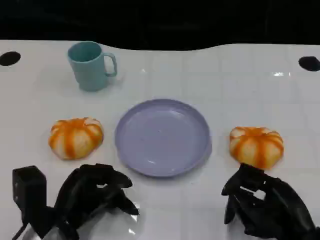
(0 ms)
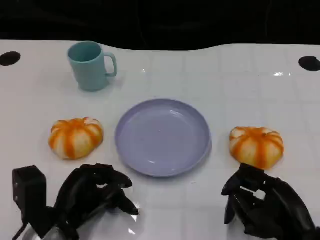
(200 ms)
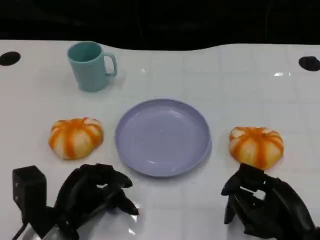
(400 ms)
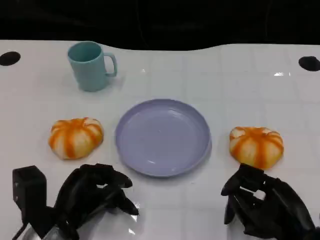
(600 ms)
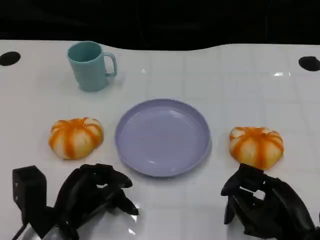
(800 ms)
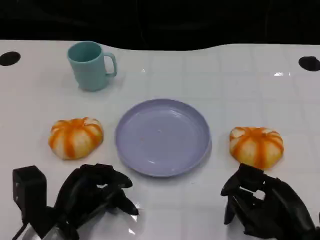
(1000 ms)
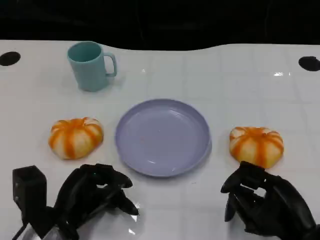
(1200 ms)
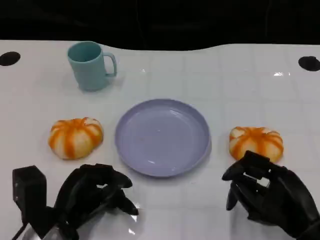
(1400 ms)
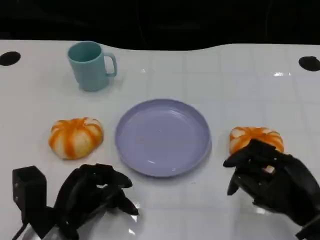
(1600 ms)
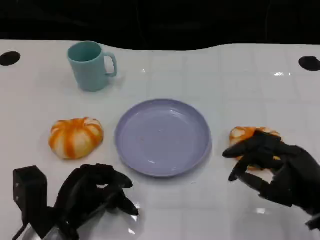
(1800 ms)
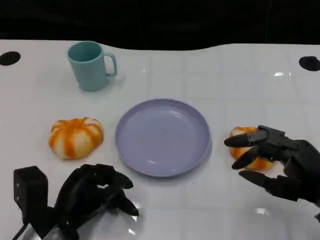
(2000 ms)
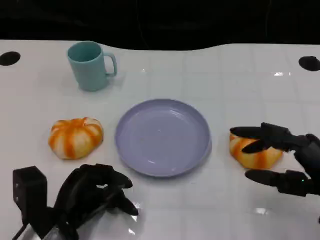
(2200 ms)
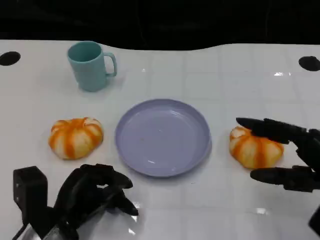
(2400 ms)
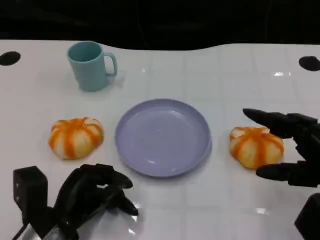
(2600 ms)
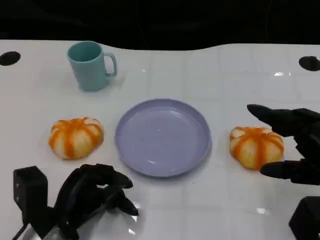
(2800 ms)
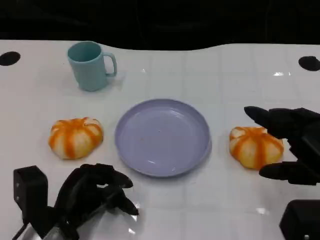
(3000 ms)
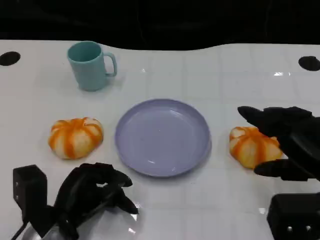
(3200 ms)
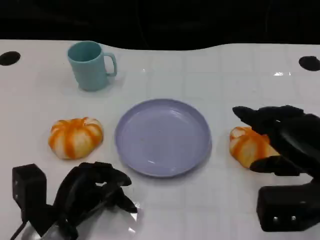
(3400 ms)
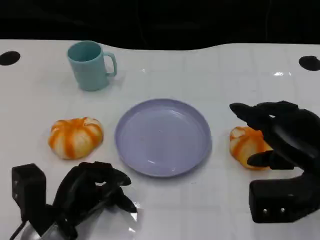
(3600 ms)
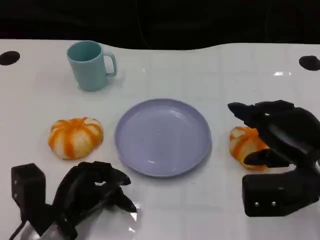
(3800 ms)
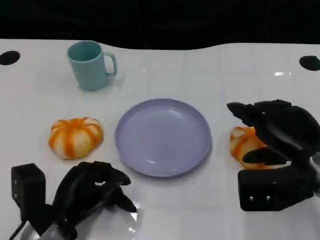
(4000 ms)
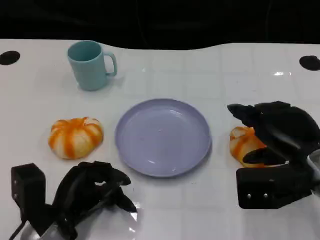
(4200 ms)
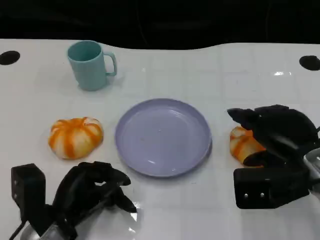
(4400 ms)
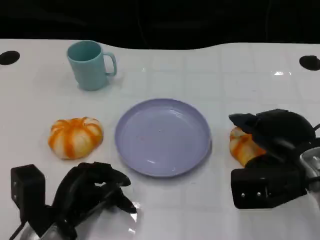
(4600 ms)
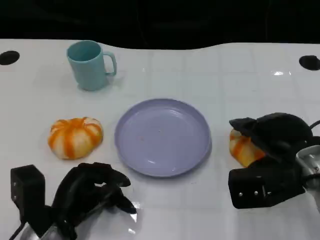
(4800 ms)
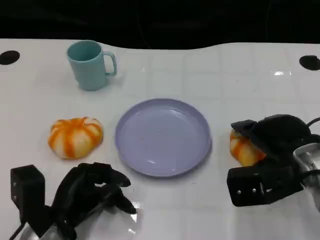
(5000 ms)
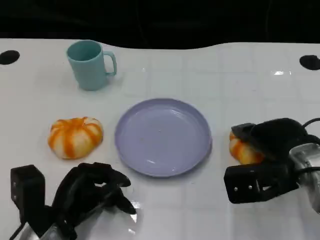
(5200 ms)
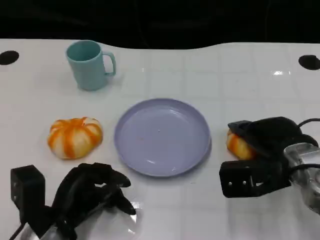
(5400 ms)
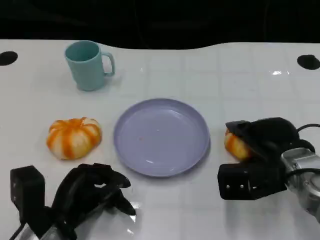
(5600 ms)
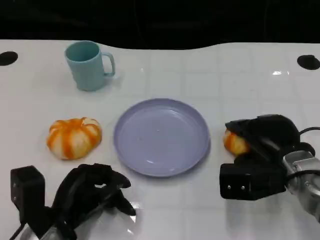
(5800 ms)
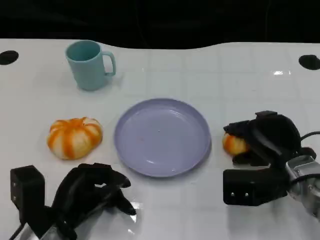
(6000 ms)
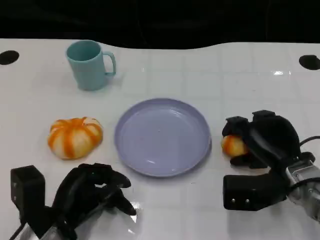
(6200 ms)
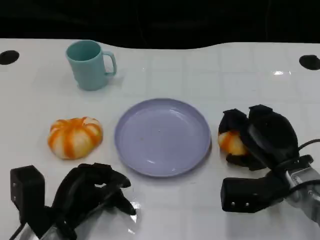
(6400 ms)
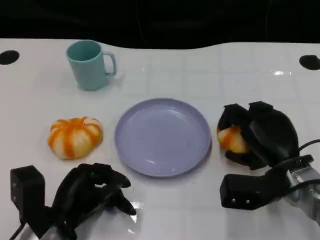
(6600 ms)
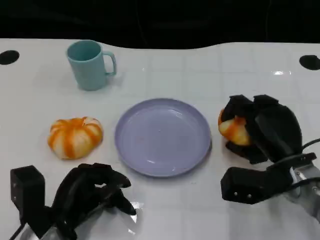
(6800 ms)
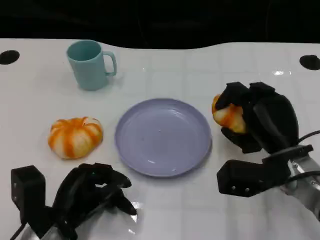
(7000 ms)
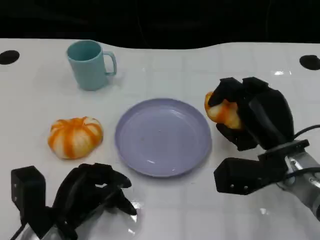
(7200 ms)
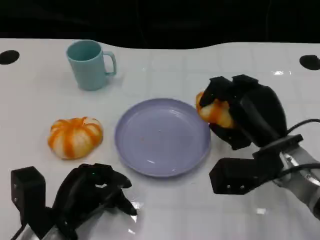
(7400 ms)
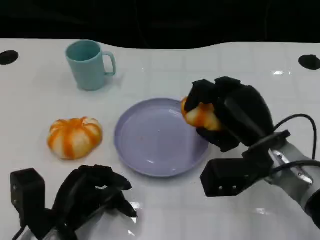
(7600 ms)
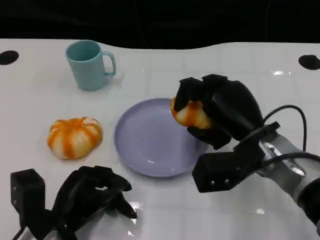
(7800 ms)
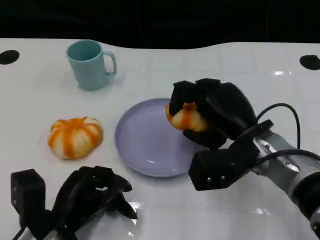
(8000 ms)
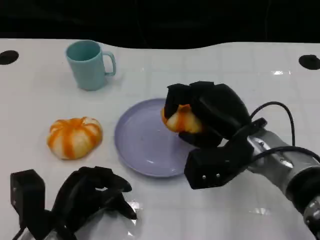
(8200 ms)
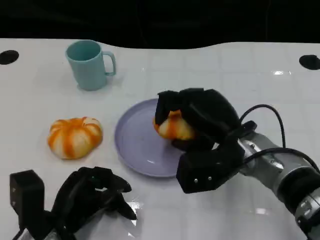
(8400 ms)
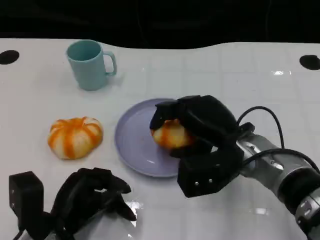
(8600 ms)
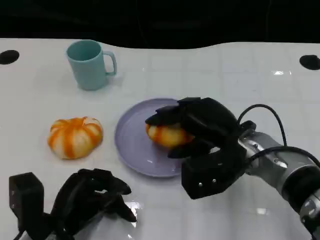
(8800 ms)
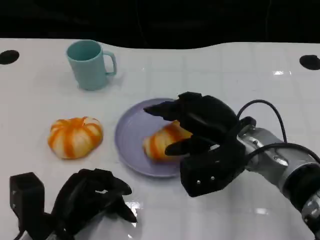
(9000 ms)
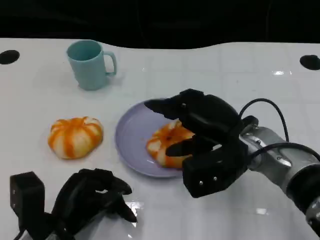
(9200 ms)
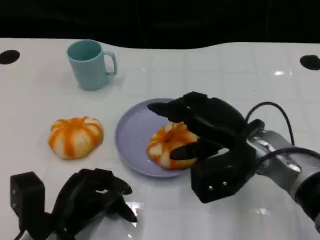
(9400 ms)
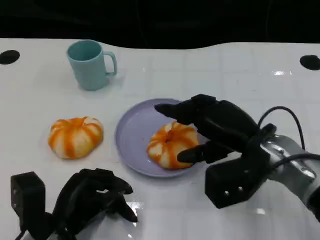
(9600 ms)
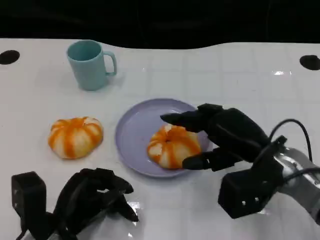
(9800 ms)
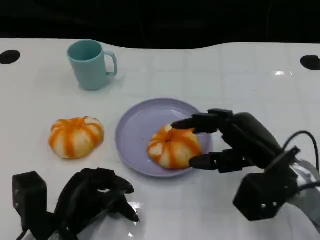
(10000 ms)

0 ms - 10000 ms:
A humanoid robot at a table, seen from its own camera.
Task of the whole recording: Grasp the bread from the table and place it into the plate.
0 ms - 1400 ms: The hands make only small movements.
1400 ms - 2800 ms: The right hand heads upward, covering roughly 10 cm.
2800 ms - 4200 ms: The right hand heads forward, covering about 5 cm.
4200 ms - 5800 ms: The right hand goes roughly 5 cm downward.
7200 ms - 8600 ms: The right hand goes about 5 cm to the left.
8600 ms - 10000 ms: The right hand heads to the right, covering about 5 cm.

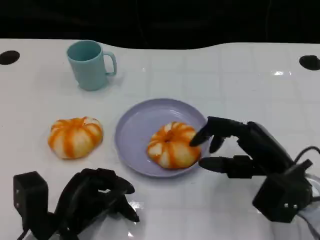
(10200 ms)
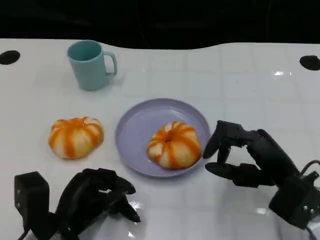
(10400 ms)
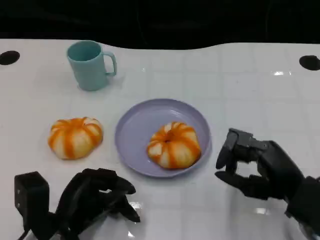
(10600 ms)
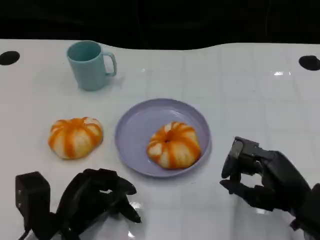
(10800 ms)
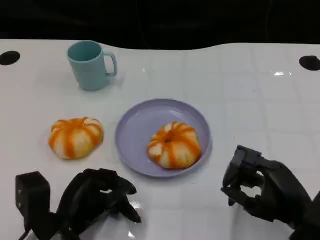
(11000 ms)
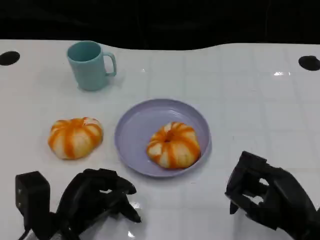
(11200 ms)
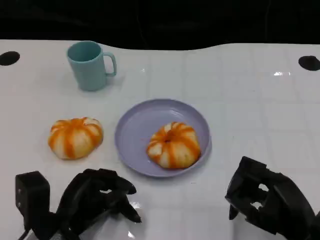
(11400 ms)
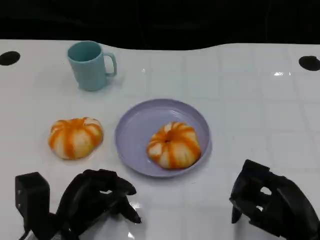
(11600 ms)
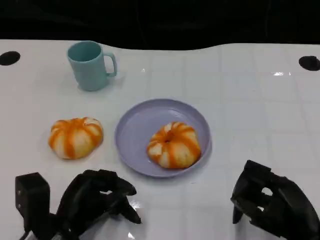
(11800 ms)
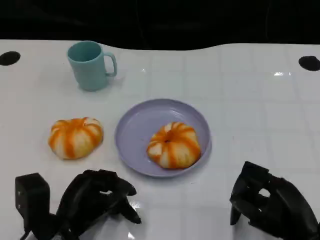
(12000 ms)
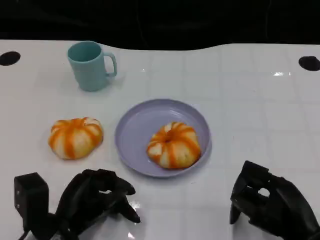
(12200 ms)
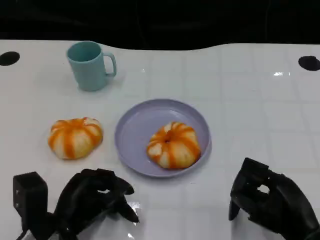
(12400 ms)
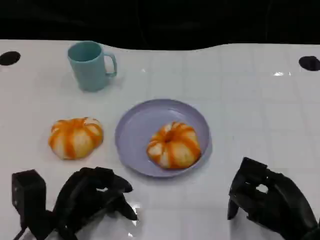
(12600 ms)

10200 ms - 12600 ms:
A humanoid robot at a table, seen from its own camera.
Task of the whole recording: Grasp the bread from the table and place it into the plate.
10200 ms - 11400 ms: The right hand goes roughly 10 cm backward.
11400 ms - 12600 ms: There are only small adjustments of the hands.

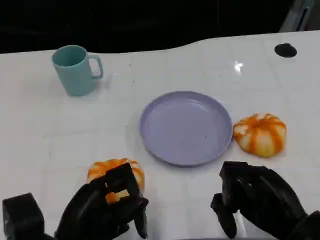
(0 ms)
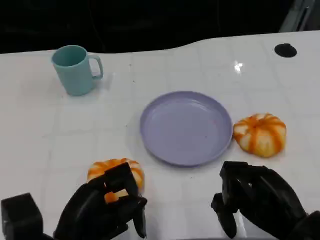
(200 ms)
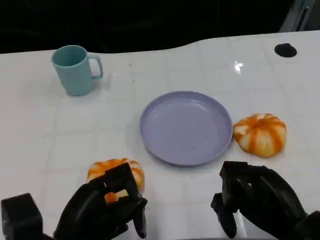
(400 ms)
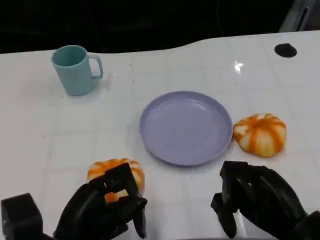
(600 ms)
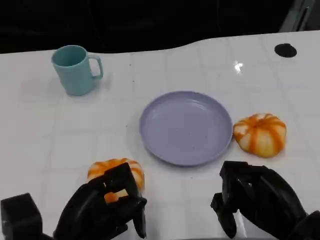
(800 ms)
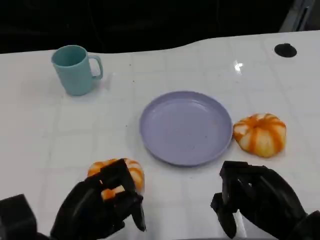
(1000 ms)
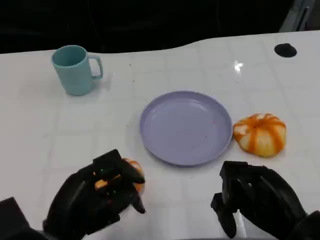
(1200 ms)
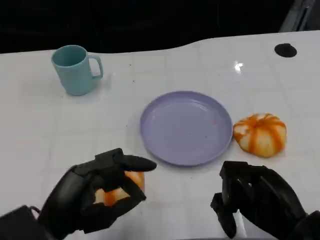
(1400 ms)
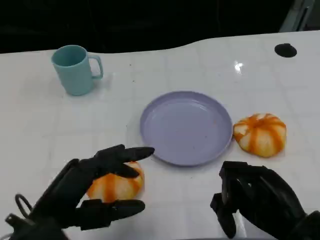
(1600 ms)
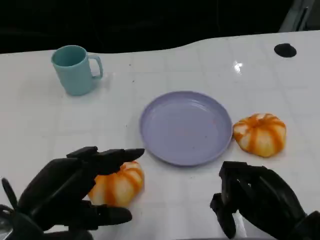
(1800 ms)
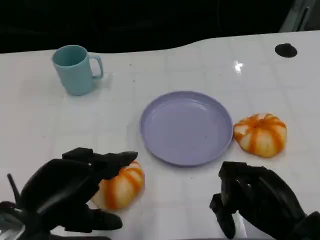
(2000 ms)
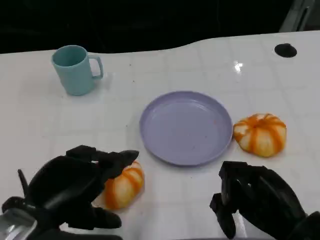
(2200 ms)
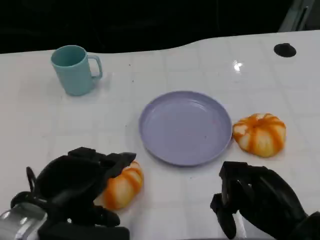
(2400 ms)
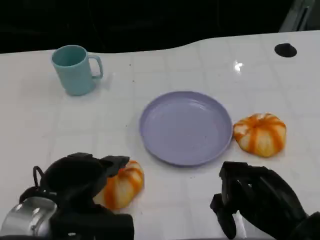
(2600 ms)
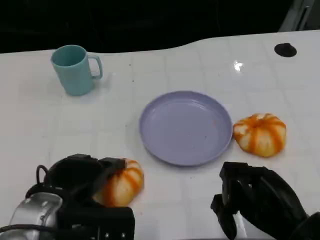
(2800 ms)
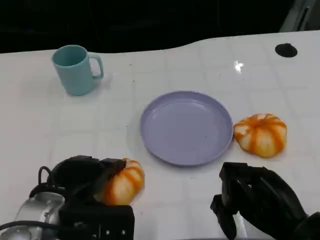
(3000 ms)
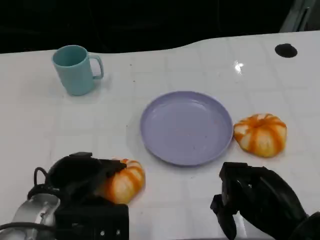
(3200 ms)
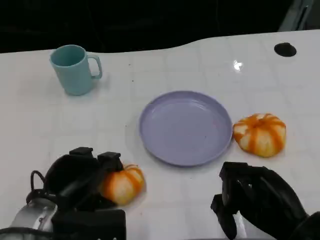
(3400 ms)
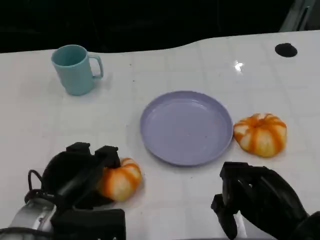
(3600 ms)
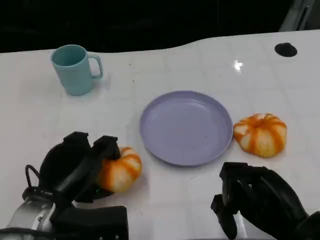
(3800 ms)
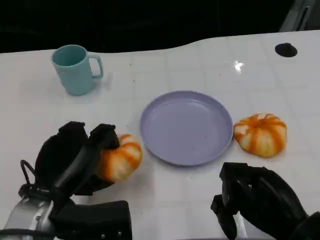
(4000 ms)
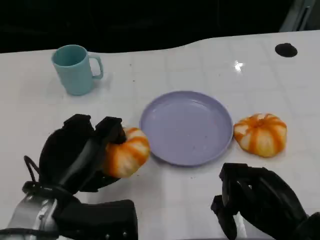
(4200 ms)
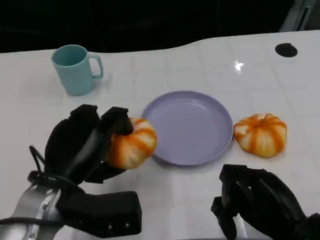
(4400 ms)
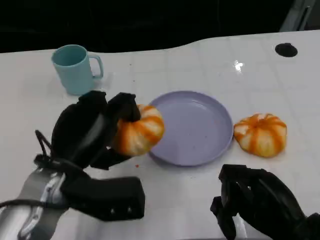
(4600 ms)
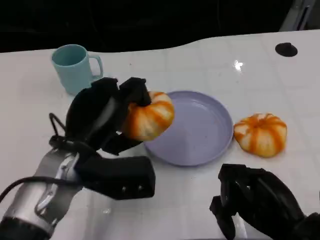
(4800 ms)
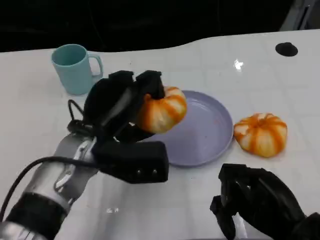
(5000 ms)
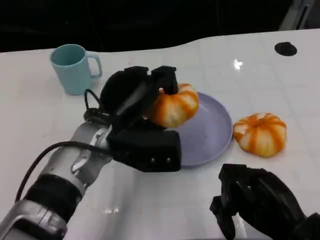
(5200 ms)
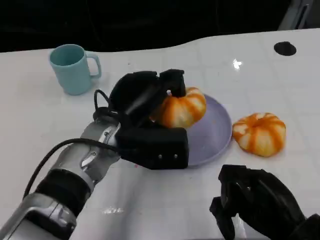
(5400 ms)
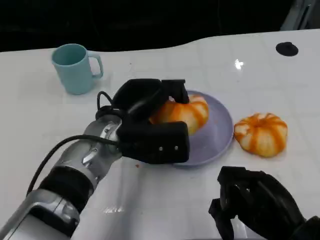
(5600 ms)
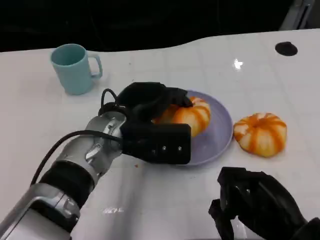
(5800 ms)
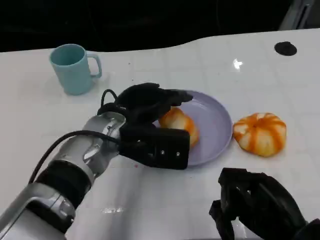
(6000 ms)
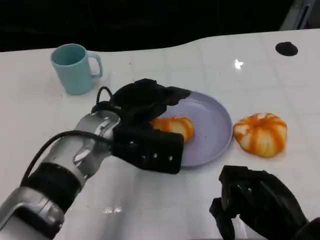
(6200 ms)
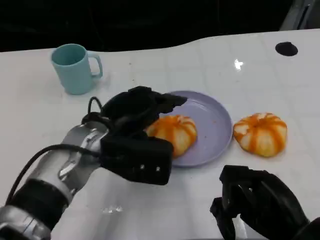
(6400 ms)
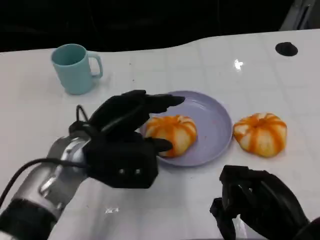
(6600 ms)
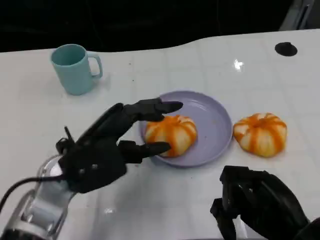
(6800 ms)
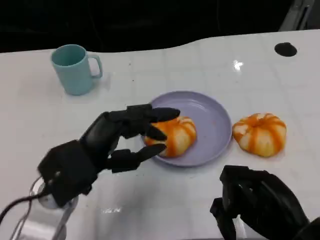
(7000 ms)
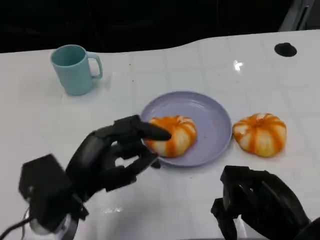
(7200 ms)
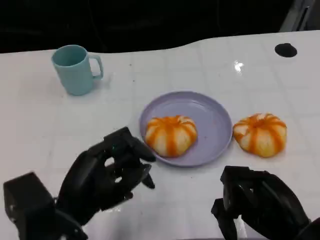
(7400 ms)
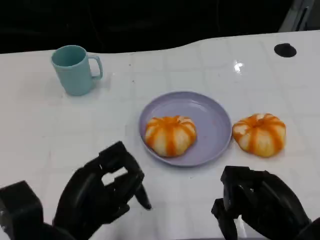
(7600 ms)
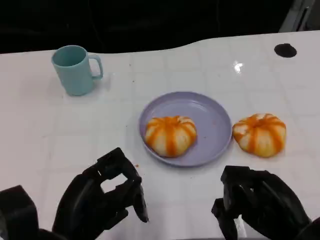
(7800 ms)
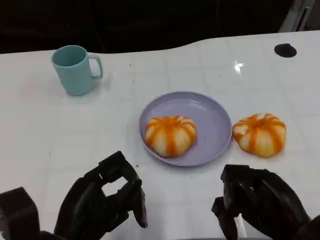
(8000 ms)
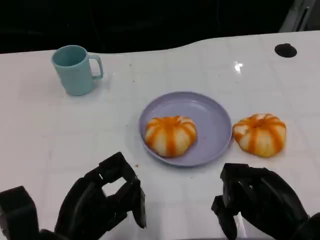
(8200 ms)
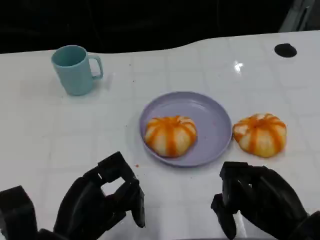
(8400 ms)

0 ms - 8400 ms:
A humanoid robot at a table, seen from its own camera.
Task of the whole recording: Grasp the bread from the table and place it into the plate.
1400 ms - 2800 ms: The left hand heads forward, covering some 5 cm.
4200 ms - 5600 ms: The left hand goes roughly 15 cm forward and to the right.
5600 ms - 7000 ms: The left hand shifts roughly 10 cm backward and to the left.
7000 ms - 8400 ms: The left hand moves backward, about 5 cm.
